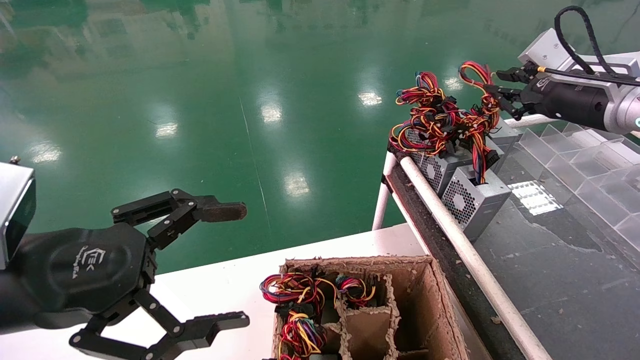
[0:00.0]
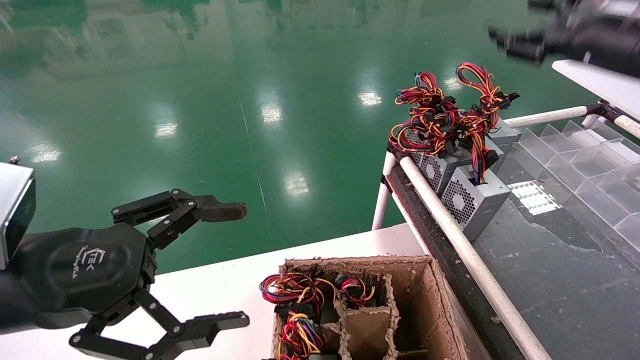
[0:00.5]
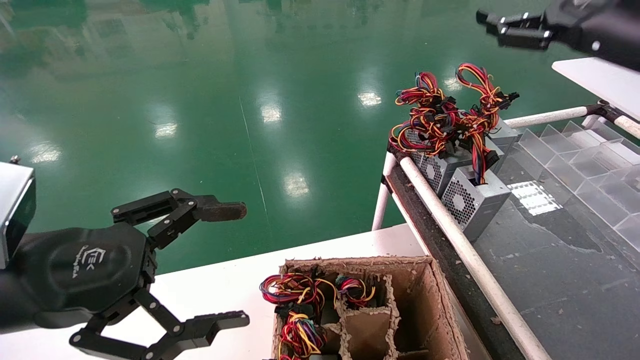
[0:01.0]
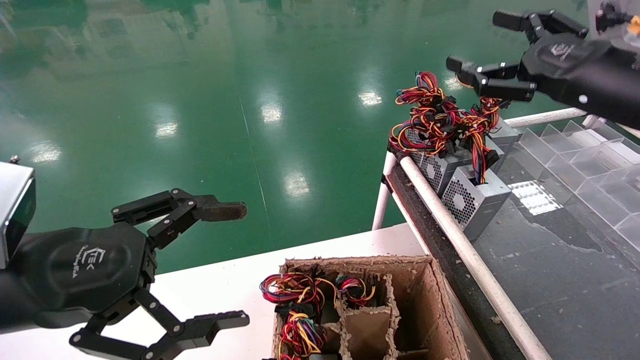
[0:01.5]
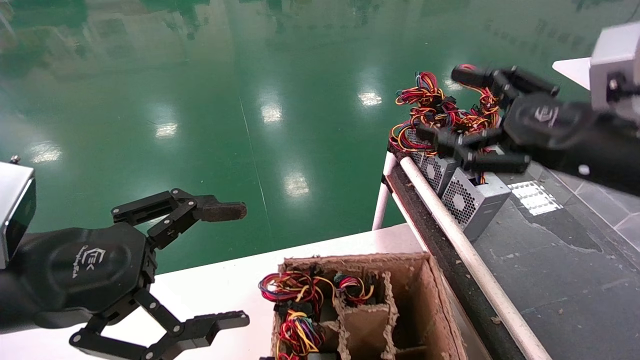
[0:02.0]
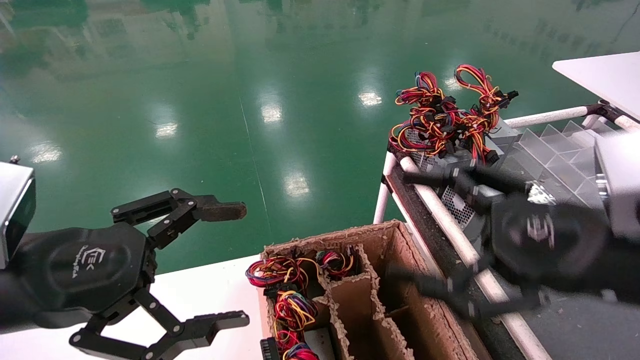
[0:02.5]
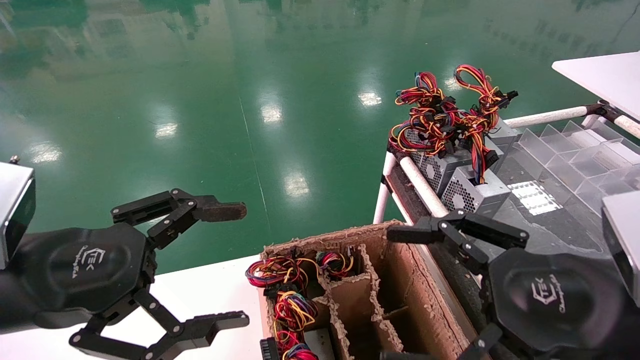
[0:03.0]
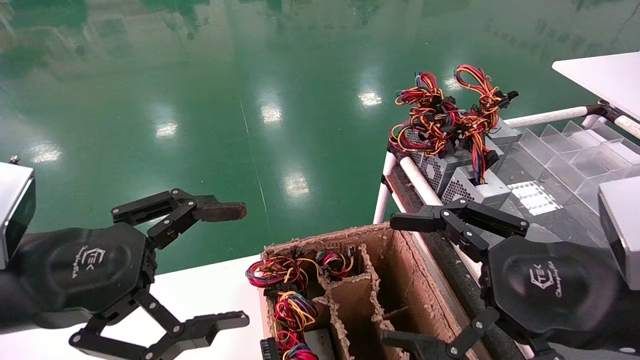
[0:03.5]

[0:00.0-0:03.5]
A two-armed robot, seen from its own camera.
0:00.0 to 0:02.0: The right gripper is displaced backward and to the left by approximately 15 cm, and opens up.
0:02.0 to 0:03.5: The right gripper moves backward and downward, roughly 10 cm.
